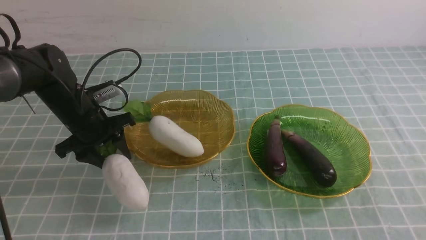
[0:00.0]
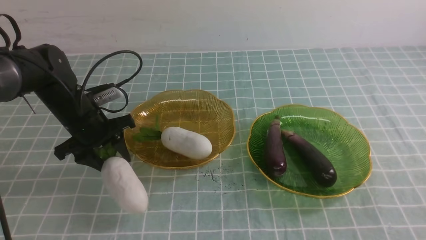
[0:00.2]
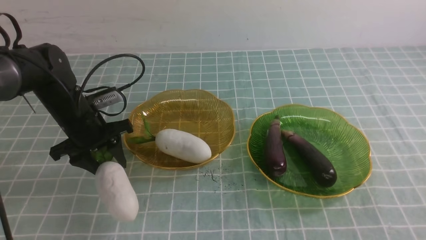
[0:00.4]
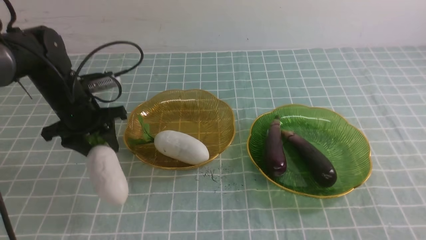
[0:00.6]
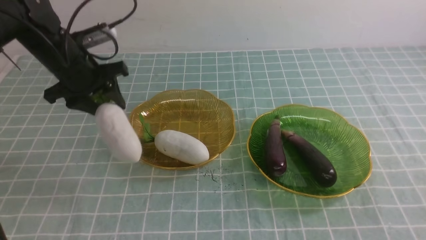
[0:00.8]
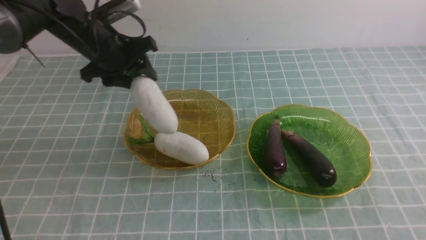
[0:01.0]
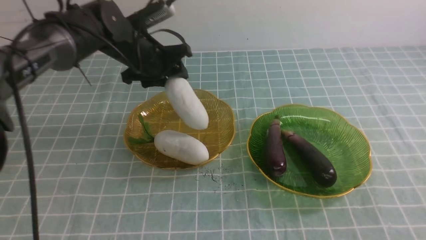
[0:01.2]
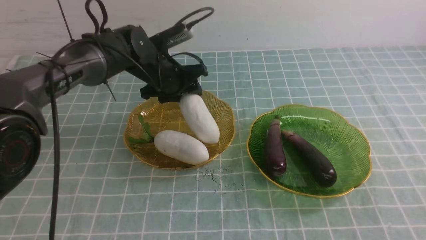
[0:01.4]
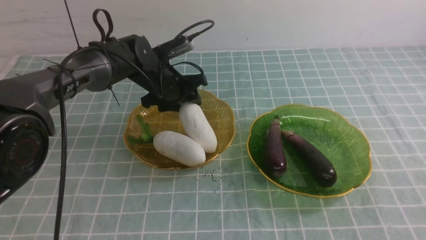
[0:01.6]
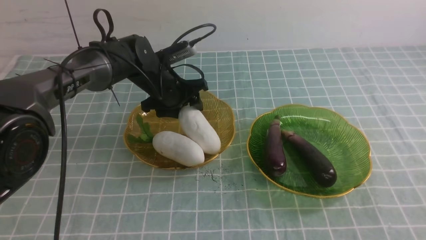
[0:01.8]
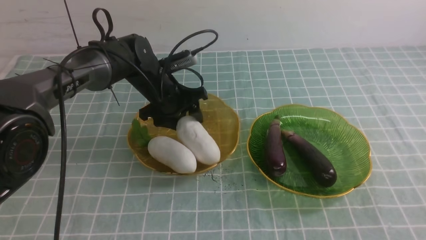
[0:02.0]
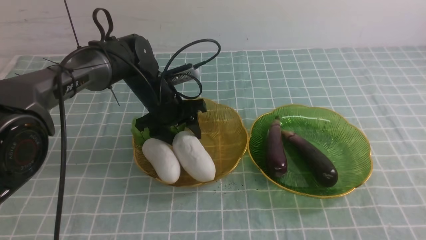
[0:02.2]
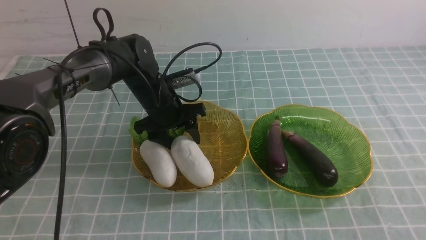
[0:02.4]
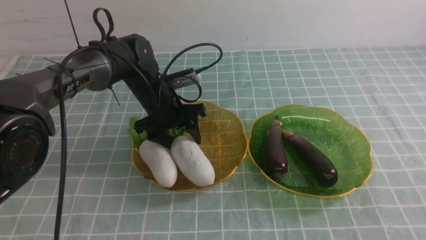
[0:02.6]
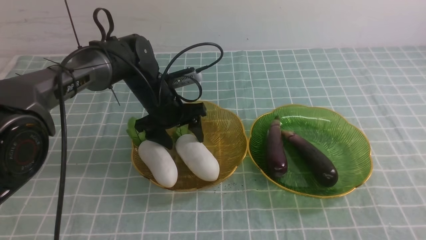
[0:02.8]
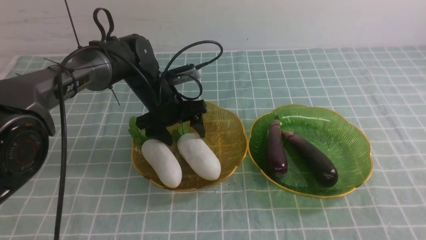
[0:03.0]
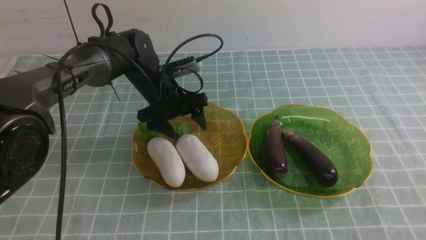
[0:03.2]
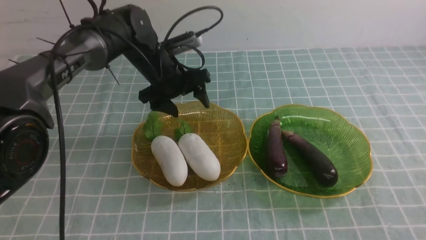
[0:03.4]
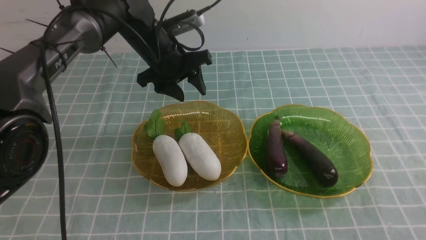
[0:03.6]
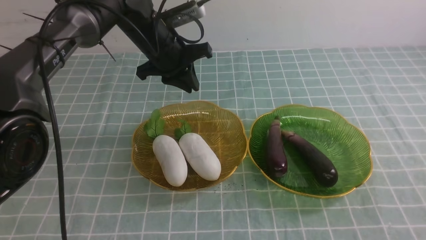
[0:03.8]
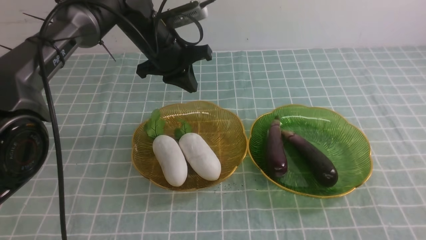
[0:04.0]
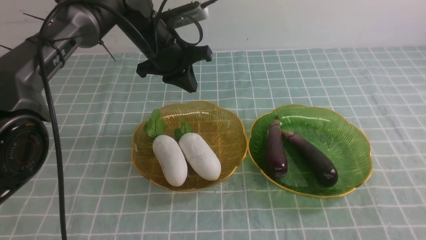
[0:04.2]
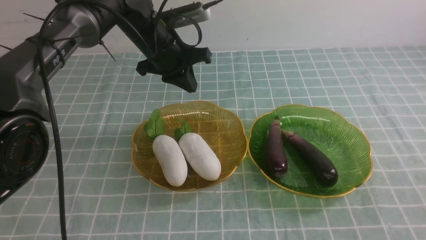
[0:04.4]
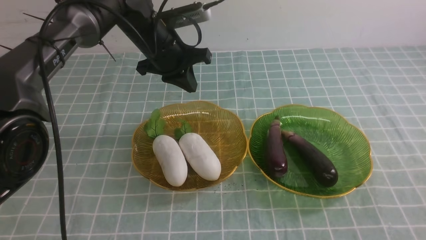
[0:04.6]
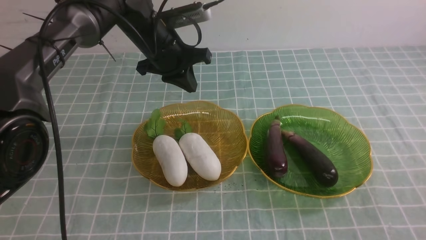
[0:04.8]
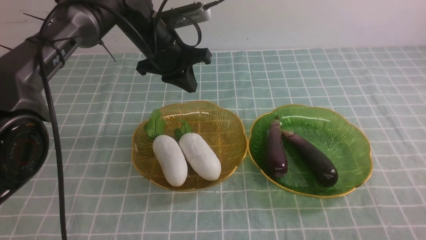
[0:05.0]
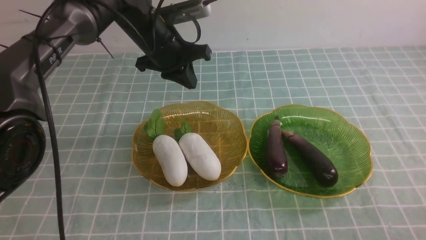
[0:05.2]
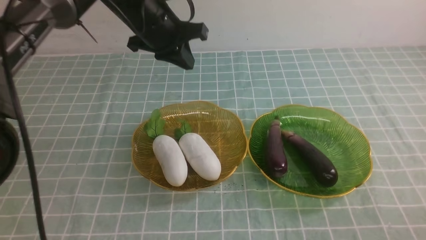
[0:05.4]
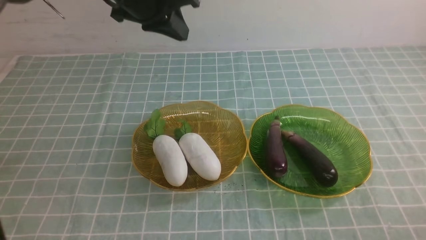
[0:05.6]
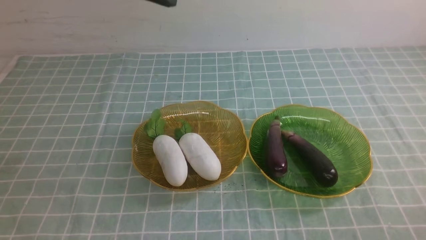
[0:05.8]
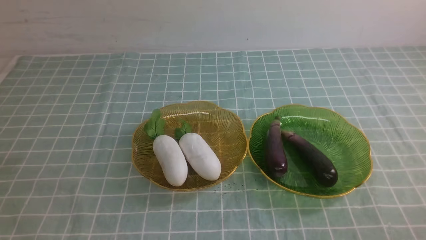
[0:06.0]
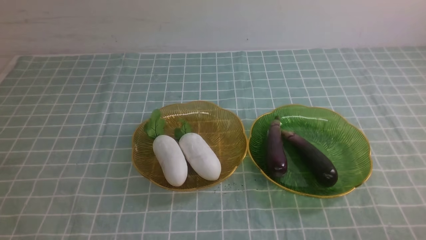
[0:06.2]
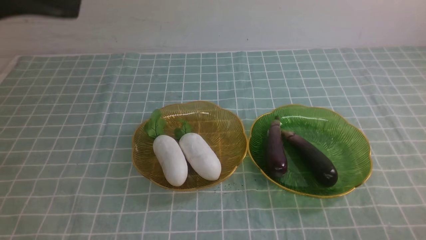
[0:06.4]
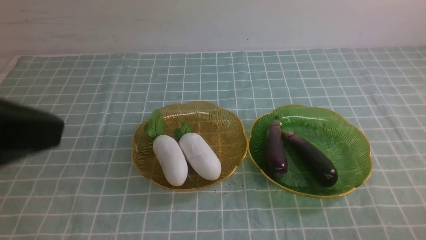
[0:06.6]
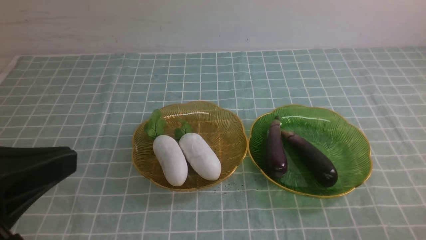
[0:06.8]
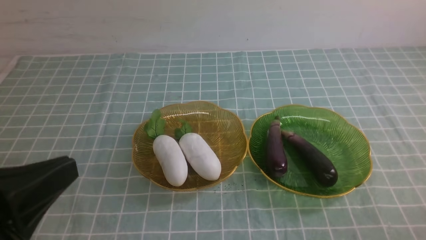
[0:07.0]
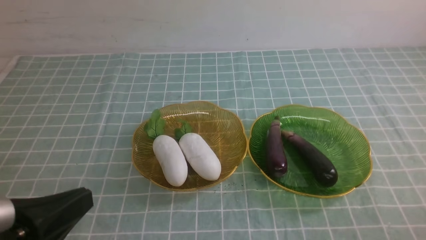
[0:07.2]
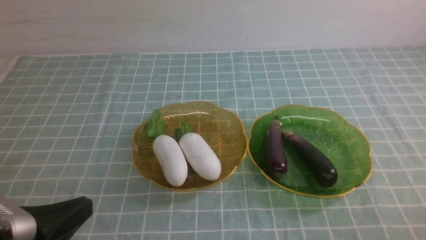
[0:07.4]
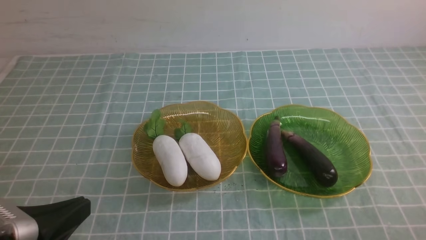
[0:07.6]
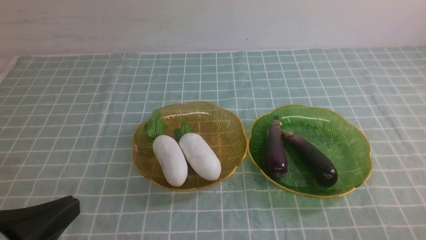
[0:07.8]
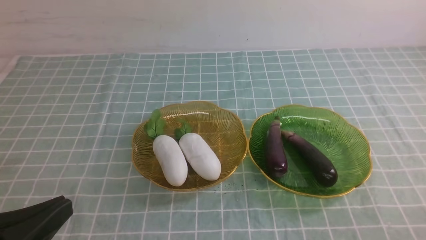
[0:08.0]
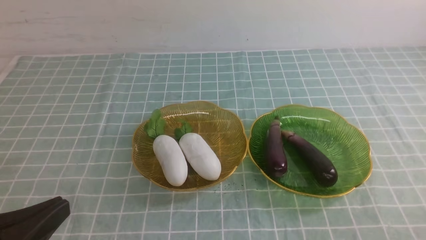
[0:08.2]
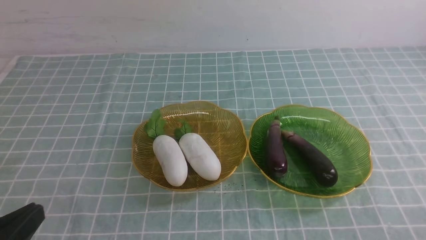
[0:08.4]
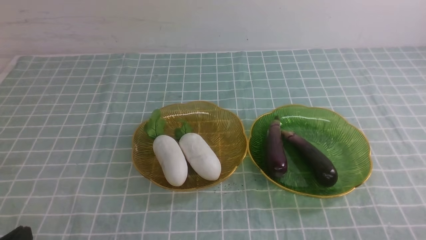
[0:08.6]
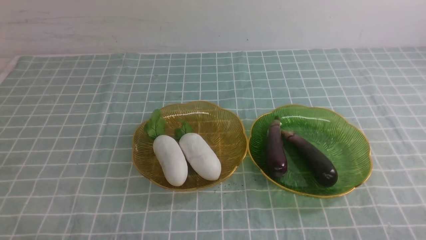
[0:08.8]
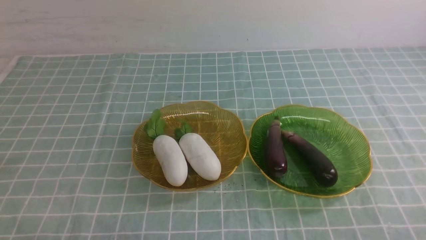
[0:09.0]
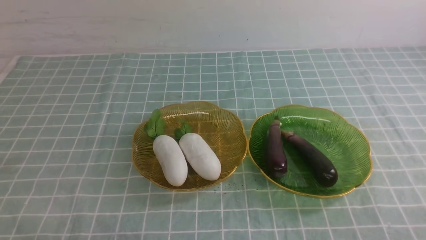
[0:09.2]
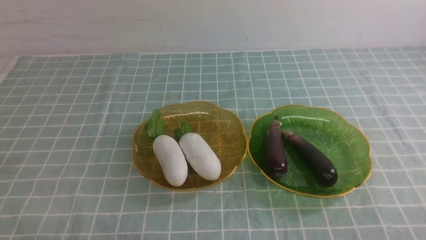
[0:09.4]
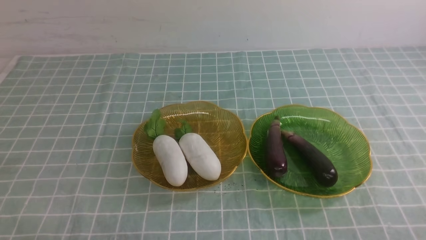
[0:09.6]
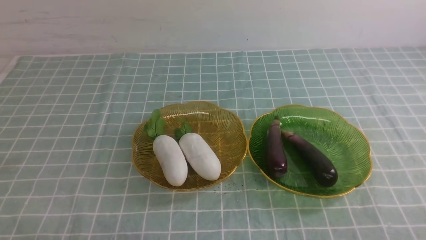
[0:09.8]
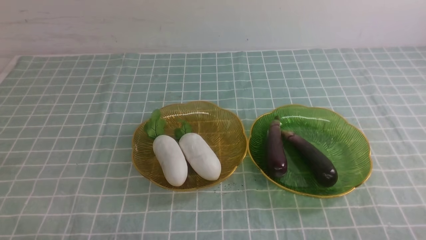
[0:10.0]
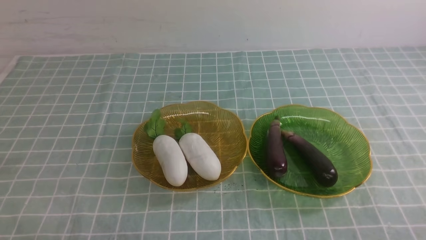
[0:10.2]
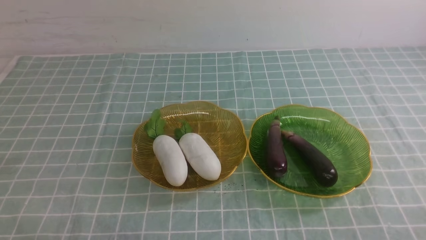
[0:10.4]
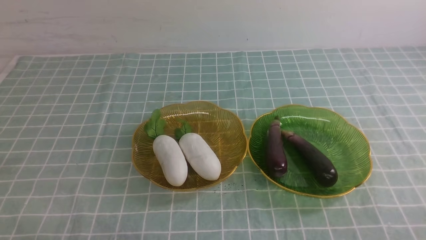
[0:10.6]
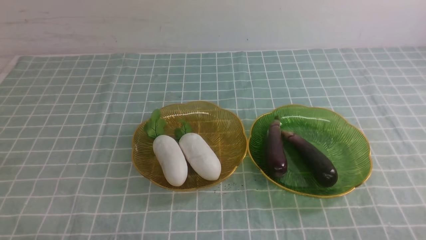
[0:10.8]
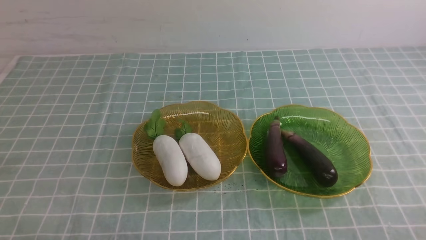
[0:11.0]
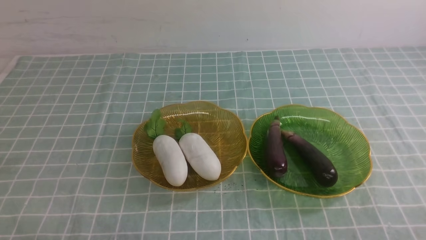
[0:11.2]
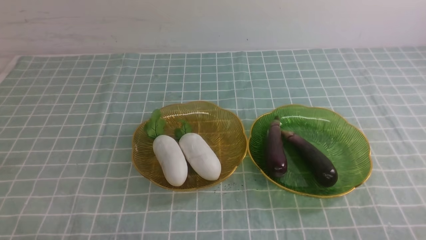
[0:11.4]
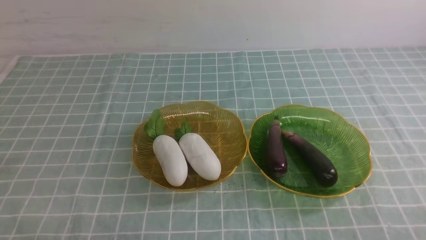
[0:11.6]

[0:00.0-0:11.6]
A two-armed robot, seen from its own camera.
Step, 0:00.0 to 0:03.2: use the left arm to grab a radish and put it into the left plate.
0:00.0 to 0:01.4: The left gripper is displaced to the right and forward by roughly 15 cm.
0:02.8 to 0:04.4: The left gripper travels upward by some 10 cm, and closes its fingers.
0:04.4 to 0:05.8: The right gripper heads downward, covering some 15 cm; the left gripper moves upward and backward, roughly 20 cm.
0:05.8 to 0:07.2: The left gripper travels backward and downward by roughly 30 cm.
0:07.2 to 0:08.8: The left gripper goes about 10 cm downward.
0:08.8 to 0:11.6: Neither gripper changes place.
